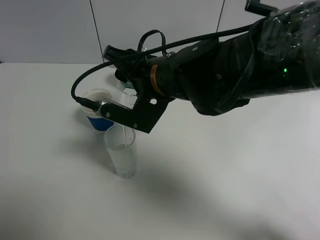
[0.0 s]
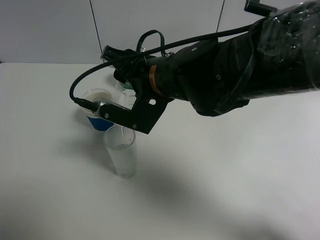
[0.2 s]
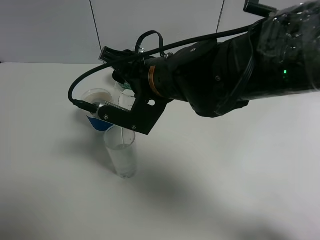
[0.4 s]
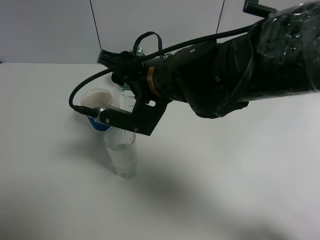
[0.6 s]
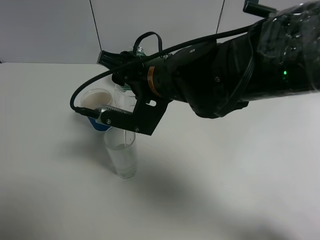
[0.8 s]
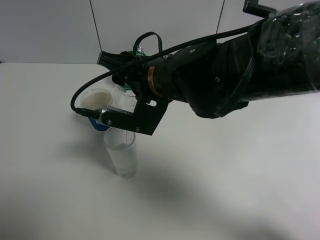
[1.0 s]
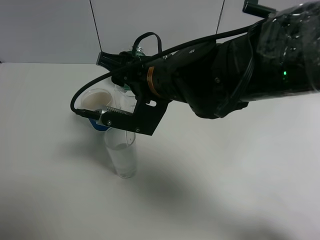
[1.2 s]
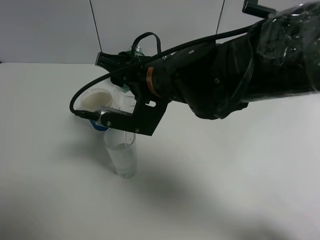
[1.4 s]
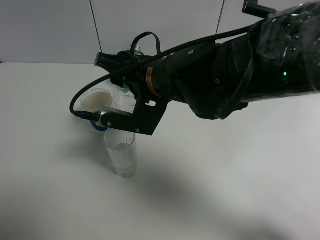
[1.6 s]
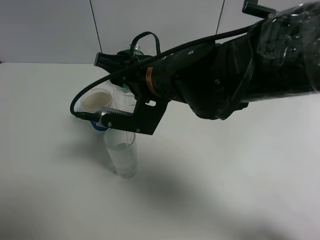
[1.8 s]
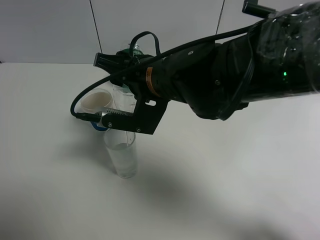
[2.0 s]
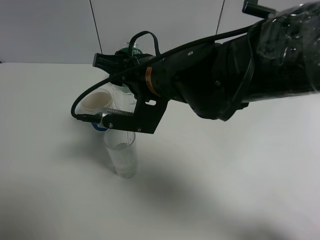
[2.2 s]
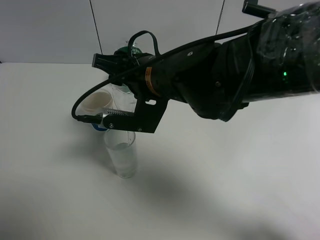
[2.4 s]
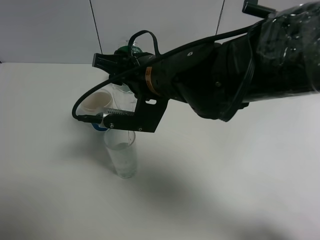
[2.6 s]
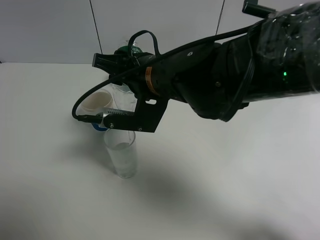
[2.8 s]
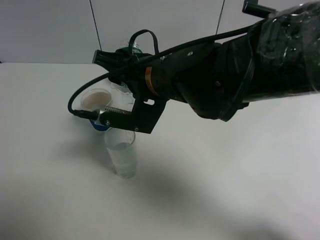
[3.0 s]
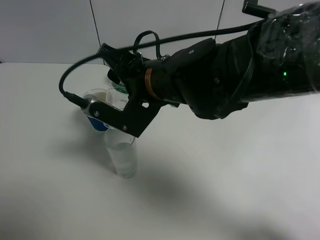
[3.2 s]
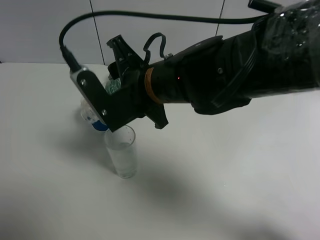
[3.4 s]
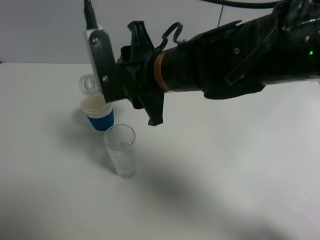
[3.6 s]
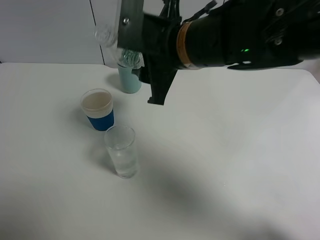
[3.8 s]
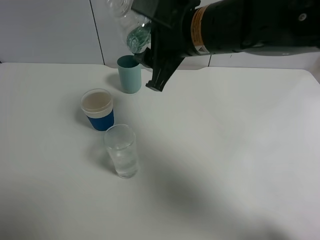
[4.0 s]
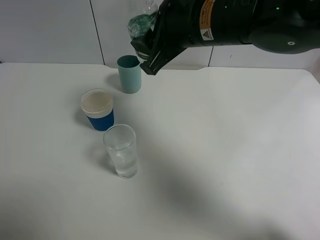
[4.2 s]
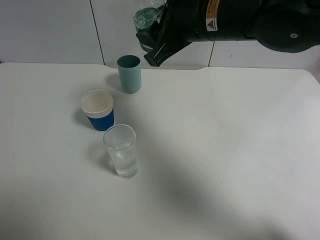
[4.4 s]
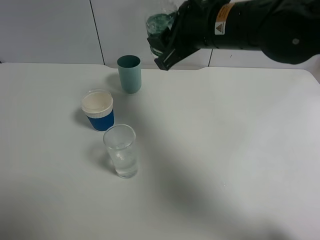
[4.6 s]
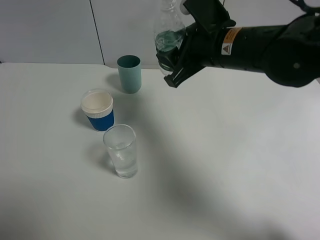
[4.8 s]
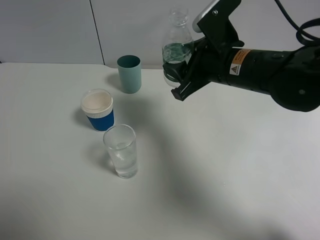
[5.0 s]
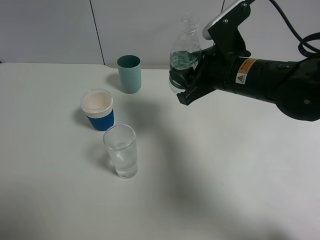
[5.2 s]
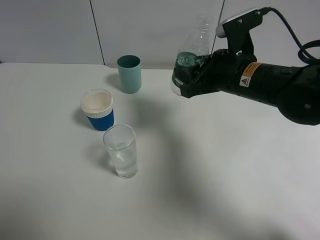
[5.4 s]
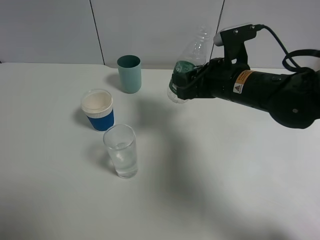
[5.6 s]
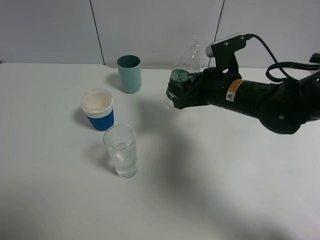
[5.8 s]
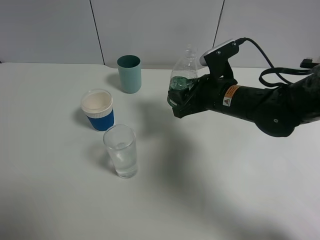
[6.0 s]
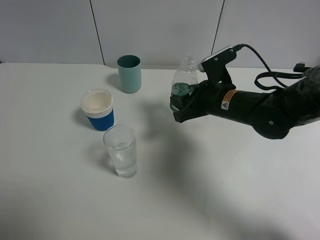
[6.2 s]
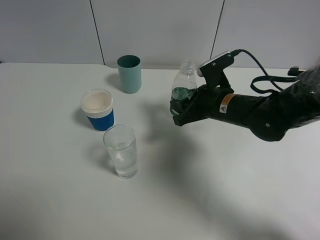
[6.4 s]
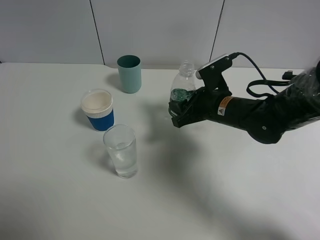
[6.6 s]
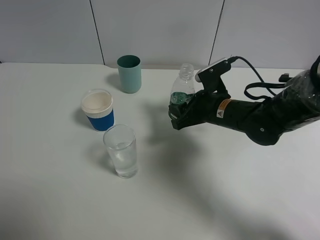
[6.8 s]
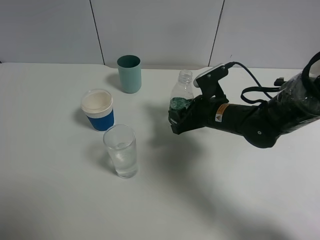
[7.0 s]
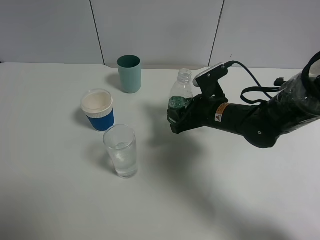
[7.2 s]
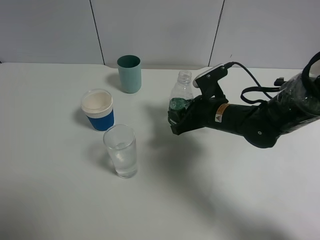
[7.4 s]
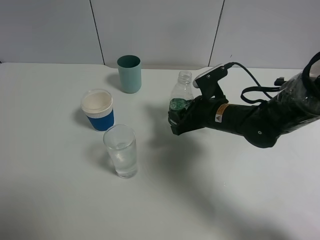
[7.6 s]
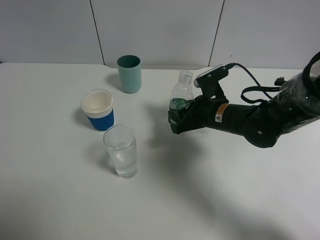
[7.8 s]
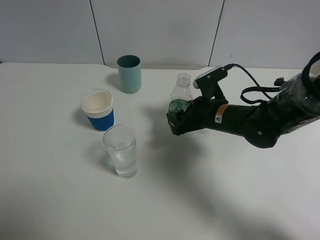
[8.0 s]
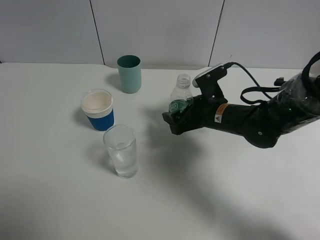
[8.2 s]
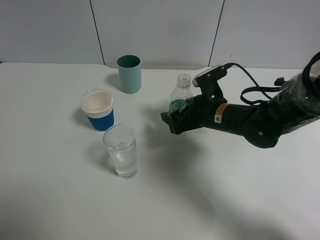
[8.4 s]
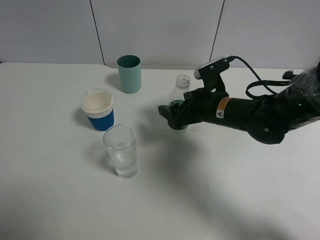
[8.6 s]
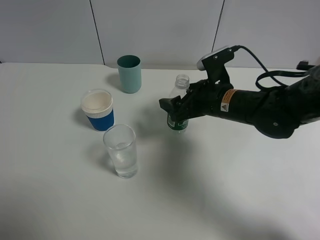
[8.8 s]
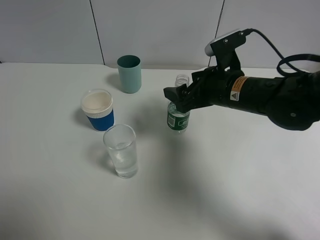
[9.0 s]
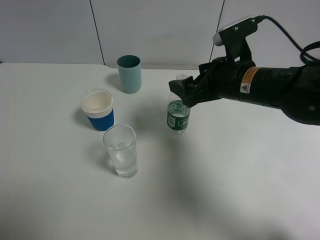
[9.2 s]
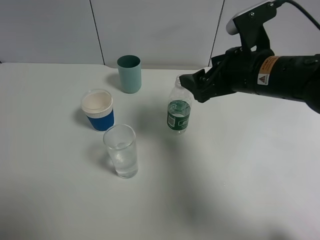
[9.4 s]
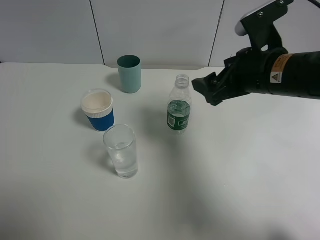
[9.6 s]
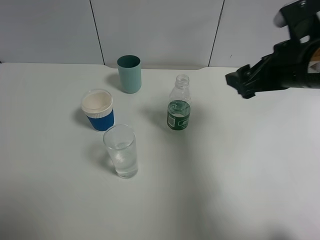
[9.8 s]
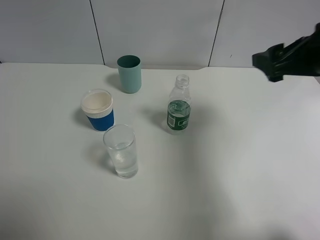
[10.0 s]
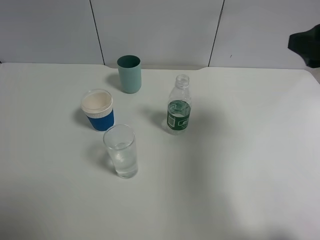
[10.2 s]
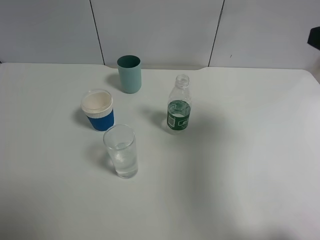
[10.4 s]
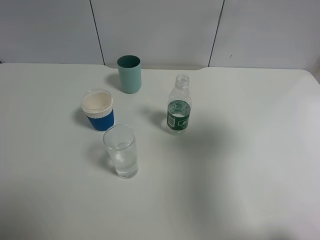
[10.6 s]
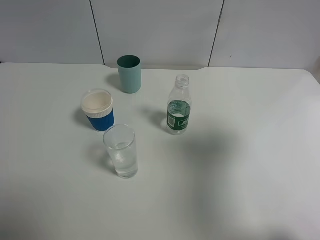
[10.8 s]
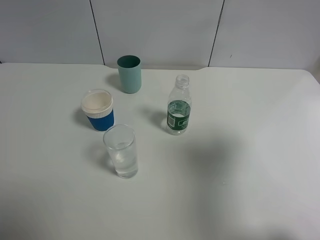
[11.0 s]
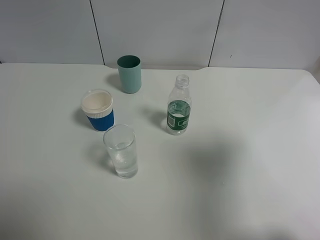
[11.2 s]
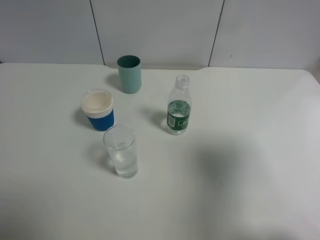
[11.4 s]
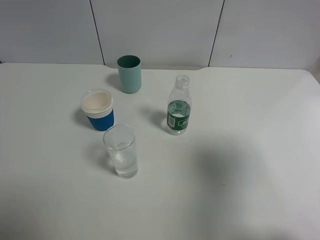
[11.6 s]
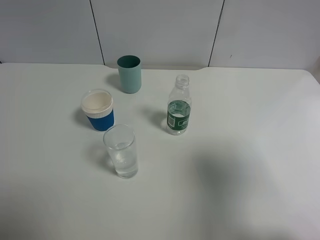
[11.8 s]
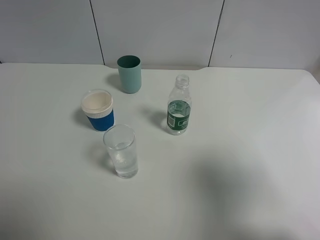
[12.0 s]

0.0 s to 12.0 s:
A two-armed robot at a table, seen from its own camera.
Task of the whole recording: use a gripper to hold the bottle of the drink and pour it into a random cup.
Step, 0.0 to 3.6 s: Pour the mineral water into the glass with the right gripper.
Step, 3.8 to 9.0 s: Place the mineral water bottle on the table with the right gripper.
0.0 to 1.6 s: The grippers make only small movements.
1.6 to 3.0 s: Neither gripper changes place.
3.0 to 4.4 s: The right gripper moves upward and to the right, roughly 10 cm.
4.4 to 6.0 s: The right gripper moves downward and to the right, some 15 cm.
6.0 to 7.6 s: The grippers stay close to where they were, moving slightly.
7.6 to 9.0 s: The right gripper shifts approximately 10 cm upward, and opens its fingers.
9.0 to 10.4 s: The right gripper heads upward, to the right and backward, covering about 25 cm.
10.4 to 12.0 s: The right gripper travels backward by approximately 15 cm.

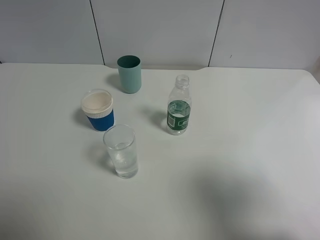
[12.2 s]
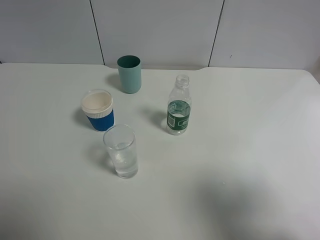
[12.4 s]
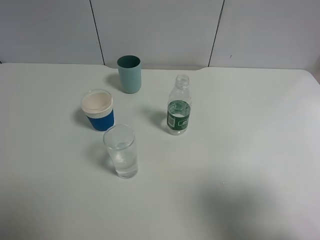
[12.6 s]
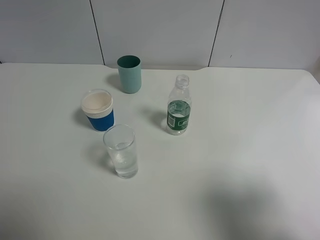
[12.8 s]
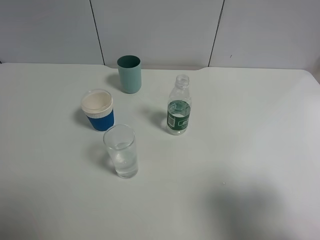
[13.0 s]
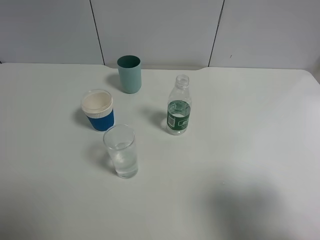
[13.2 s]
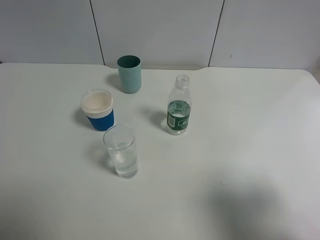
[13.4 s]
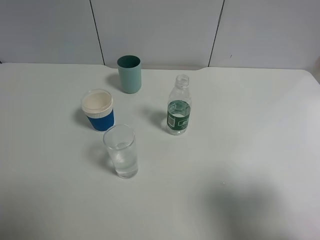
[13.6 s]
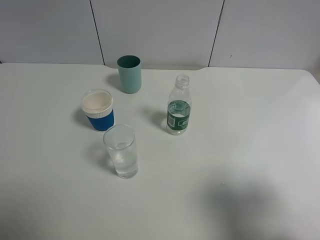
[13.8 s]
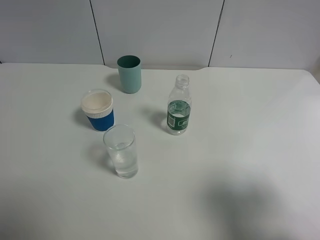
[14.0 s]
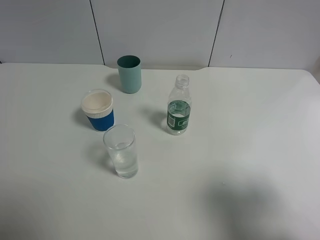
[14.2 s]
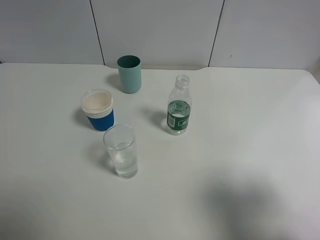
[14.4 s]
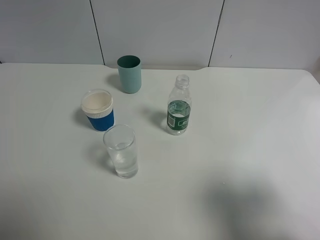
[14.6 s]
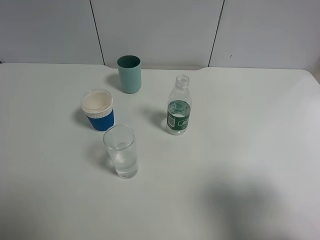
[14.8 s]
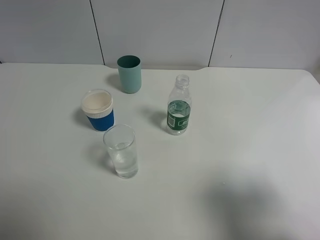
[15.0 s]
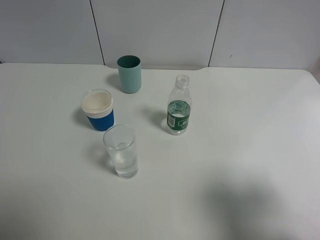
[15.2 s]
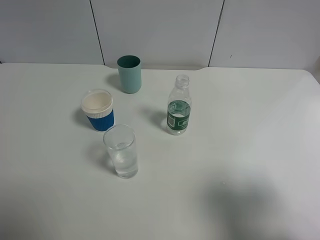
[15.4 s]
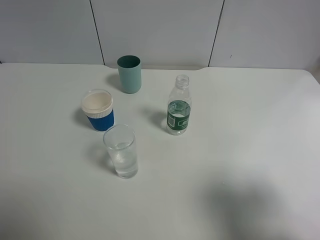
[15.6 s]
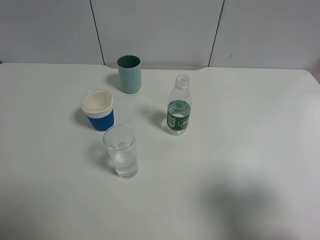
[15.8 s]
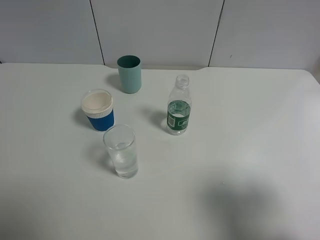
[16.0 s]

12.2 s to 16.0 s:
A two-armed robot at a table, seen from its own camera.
Task of the whole recording: use a gripper to hold the bottle of the drink and pour it into a random cup.
12.2 to 13.4 s: The grippers stay close to where they were, moving slightly.
13.4 to 16.0 s: The two grippers keep their place.
